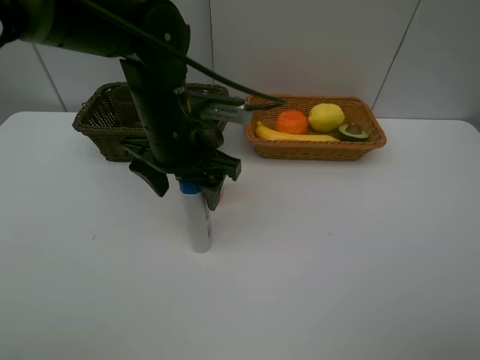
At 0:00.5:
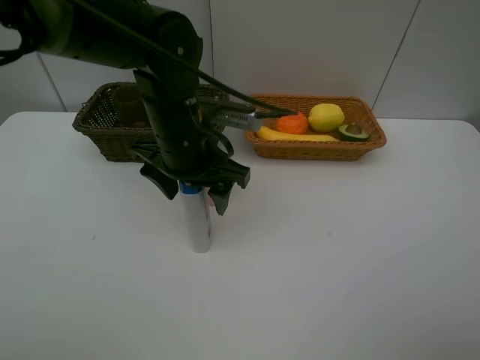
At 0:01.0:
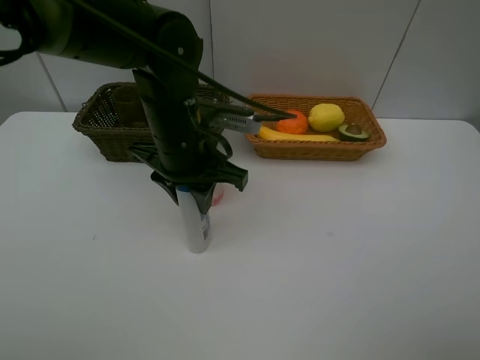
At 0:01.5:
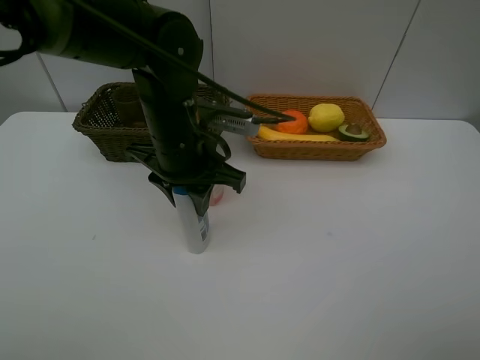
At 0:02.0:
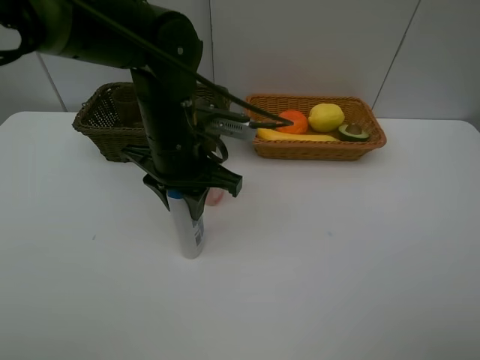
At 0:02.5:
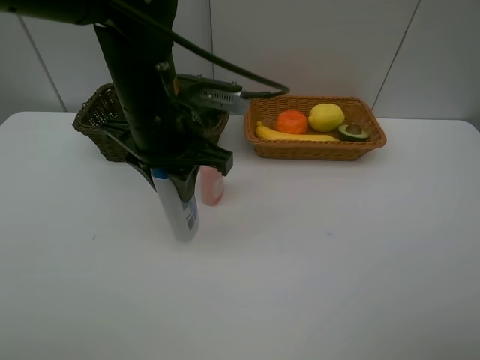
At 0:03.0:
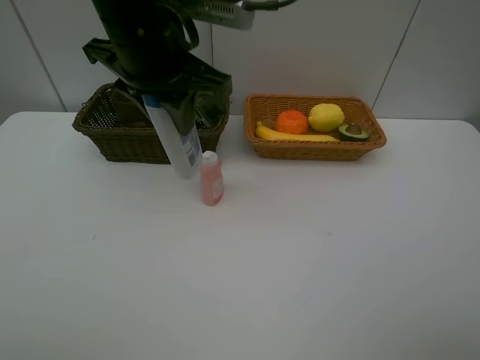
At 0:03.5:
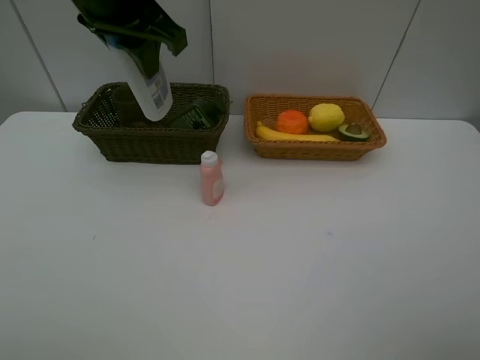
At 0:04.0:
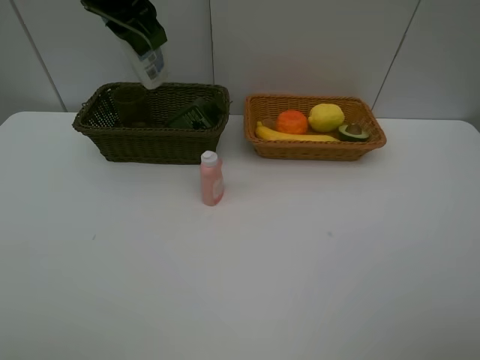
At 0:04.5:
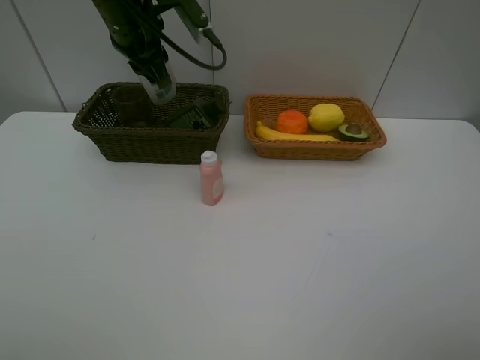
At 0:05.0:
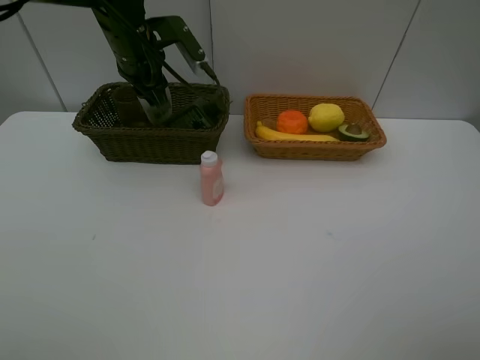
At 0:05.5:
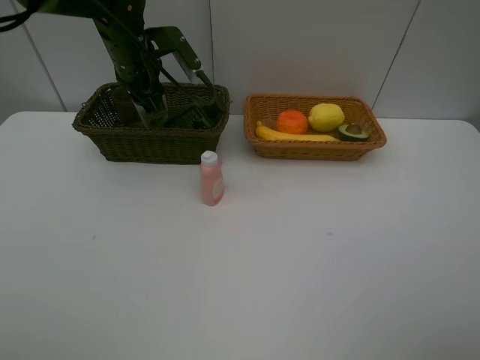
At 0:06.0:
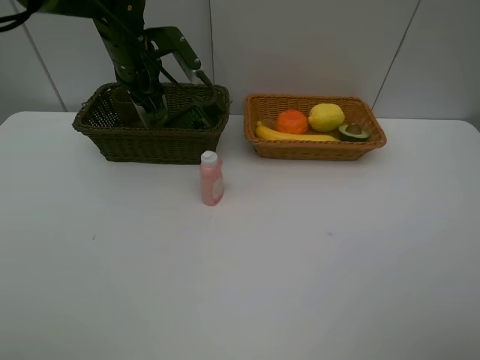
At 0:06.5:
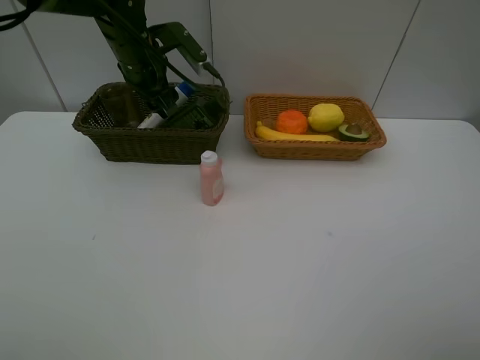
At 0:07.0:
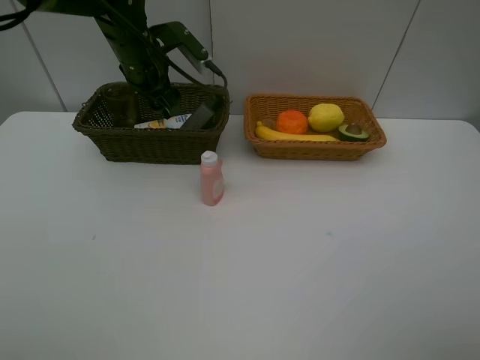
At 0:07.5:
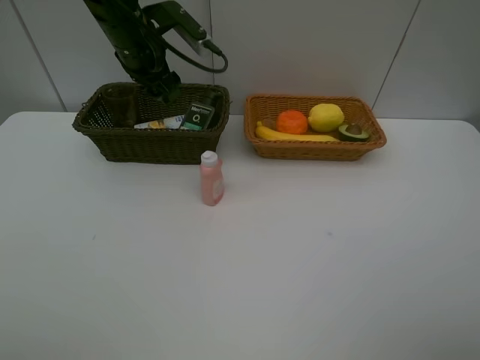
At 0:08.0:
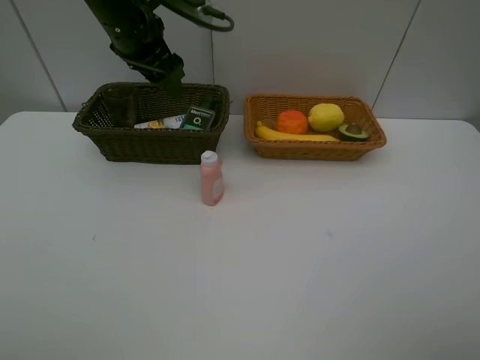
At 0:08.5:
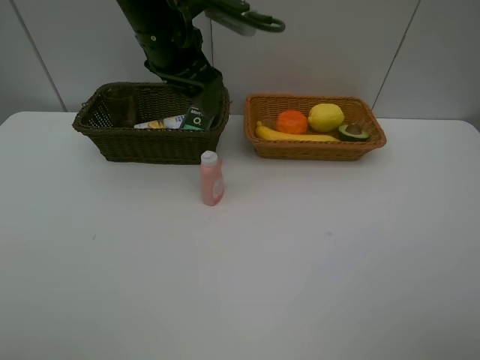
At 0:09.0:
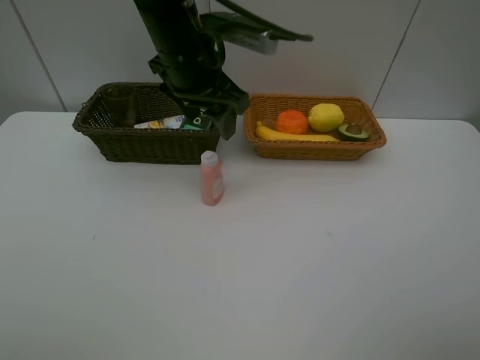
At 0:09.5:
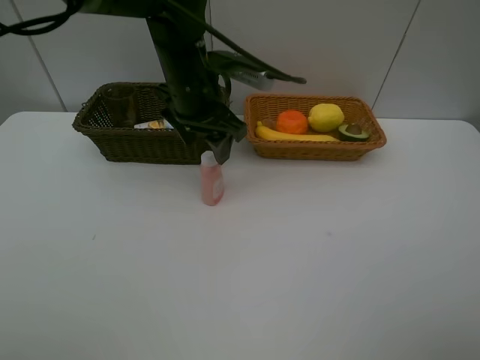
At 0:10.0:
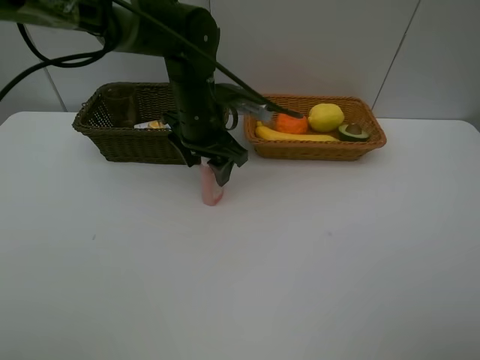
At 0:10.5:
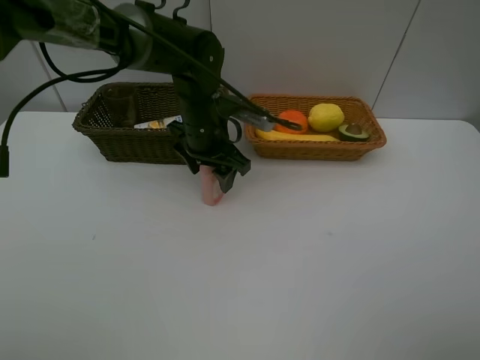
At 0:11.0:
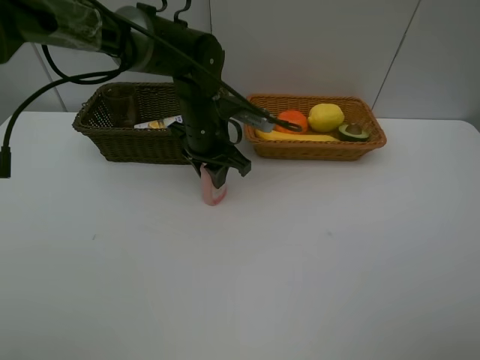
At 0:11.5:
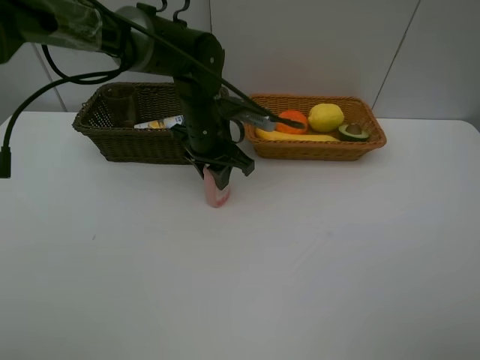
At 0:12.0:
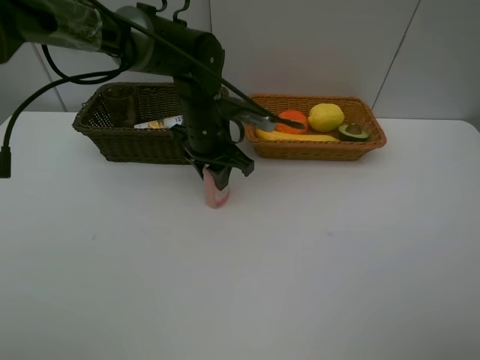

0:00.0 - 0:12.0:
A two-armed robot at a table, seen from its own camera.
Task of the whole recording: Place multiple objects separately in different baskets.
Step, 0:00.0 - 0:02.0: Pick up the shampoo with left gripper.
Step, 0:02.5 - 0:07.0: Place the shampoo in the dark basket with left gripper.
0:00.0 - 0:02.0: The left gripper closes its fingers.
0:02.0 - 0:04.0: The left gripper moves upward, forward and to the left, some 20 cm.
0:04.0 - 0:06.0: The left gripper goes roughly 15 cm downward and forward.
0:06.0 - 0:08.0: The left gripper goes some 5 cm upward, and opens up.
0:08.0 - 0:10.0: The left gripper moves downward and to the right, roughly 15 cm.
0:10.0 - 0:12.0: The left gripper closes.

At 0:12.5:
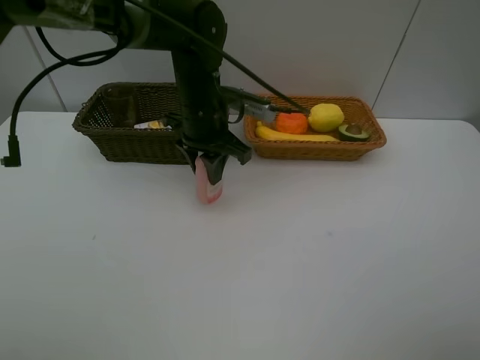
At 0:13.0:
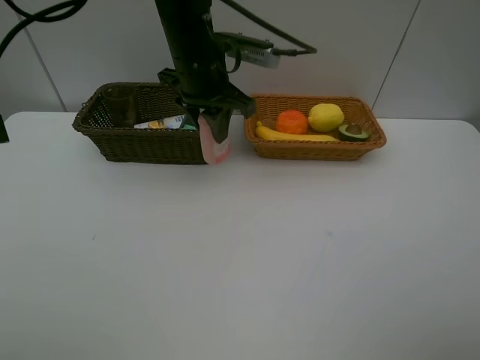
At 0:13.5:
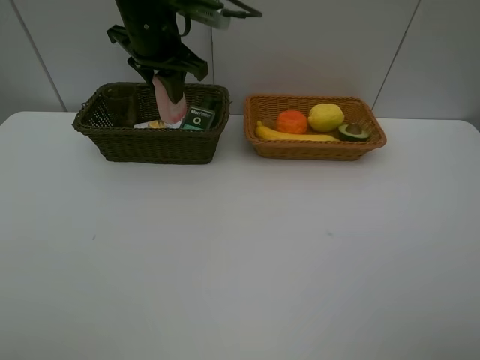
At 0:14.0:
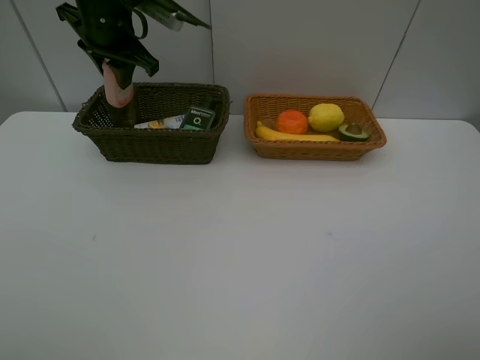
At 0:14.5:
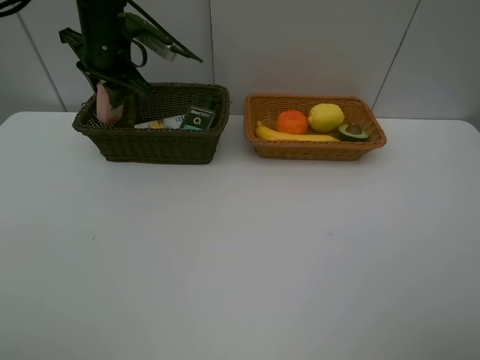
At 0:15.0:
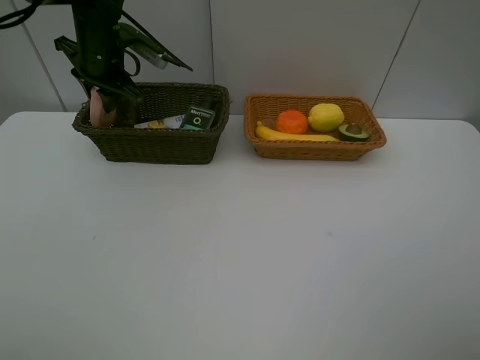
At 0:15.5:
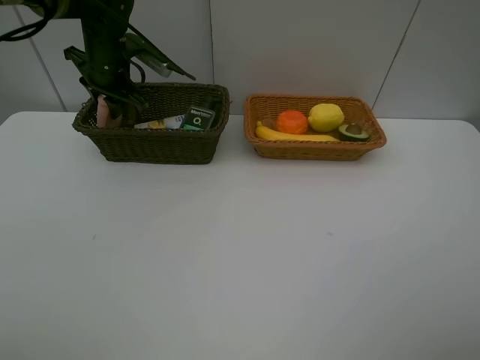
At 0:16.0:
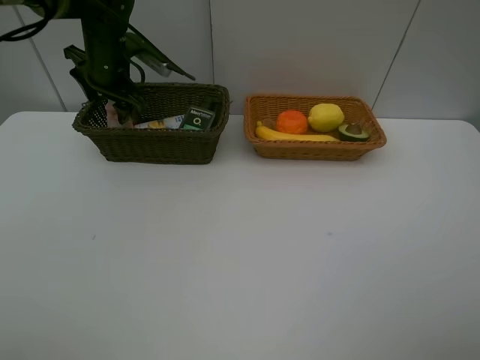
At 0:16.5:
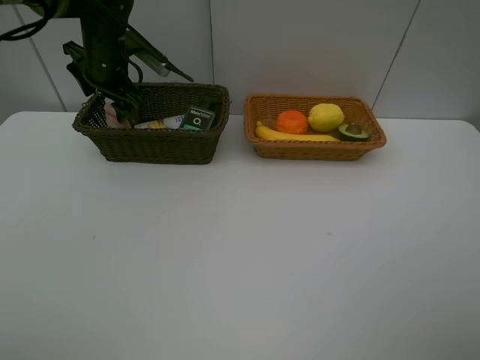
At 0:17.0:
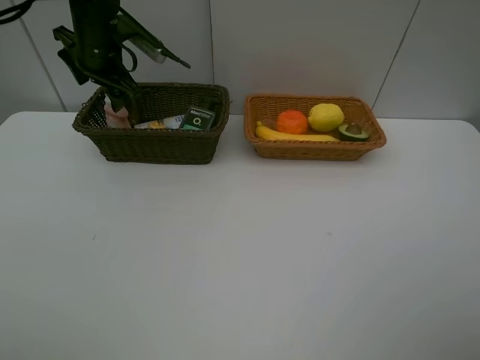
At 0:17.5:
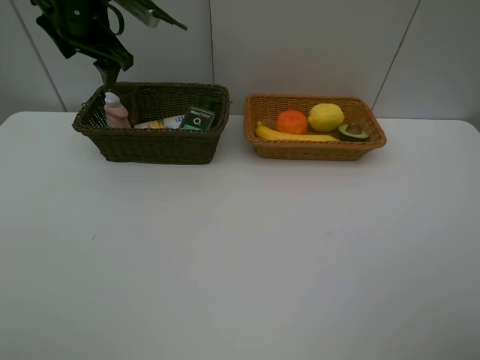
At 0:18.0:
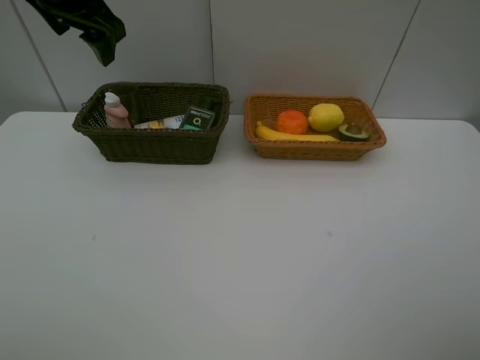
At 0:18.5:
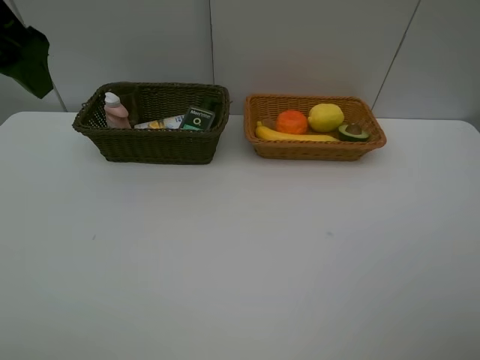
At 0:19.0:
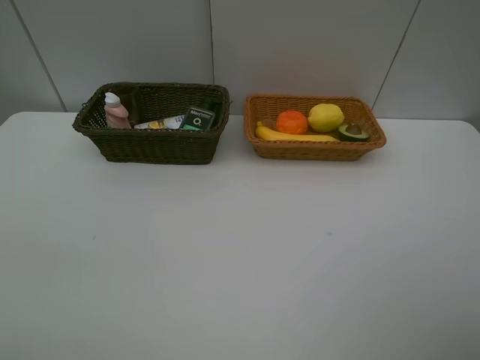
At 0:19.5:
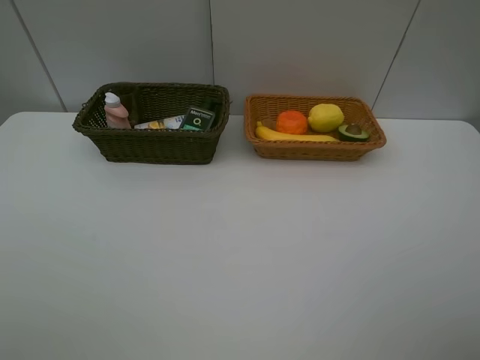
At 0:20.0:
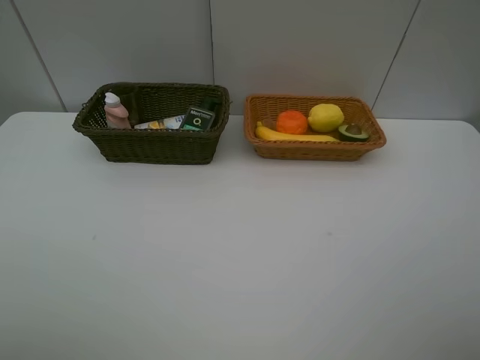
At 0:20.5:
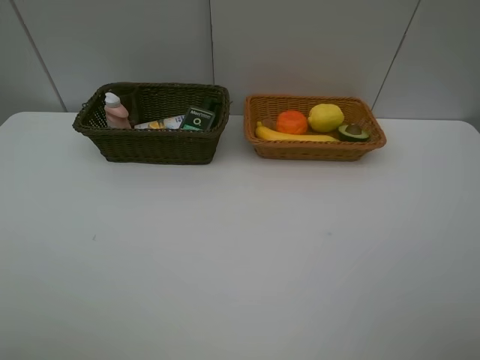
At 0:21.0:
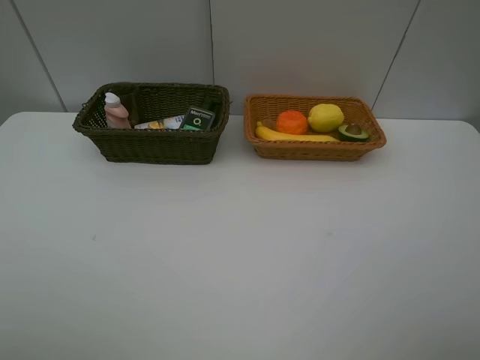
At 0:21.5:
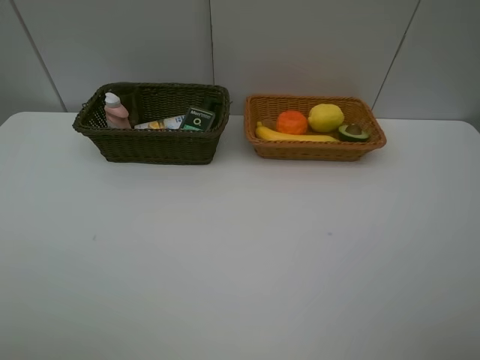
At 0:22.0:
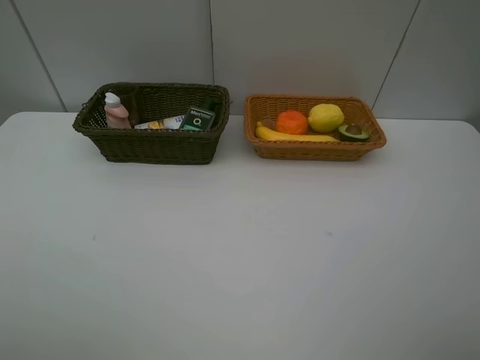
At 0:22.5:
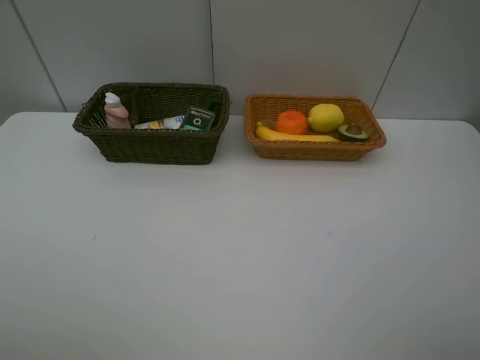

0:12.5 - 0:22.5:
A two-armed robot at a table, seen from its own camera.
Task of the whole recording: Place multiple objects separately in different baskets.
Step, 0:13.0 - 0:17.0: Place the laundry detergent in the dark basket with left gripper.
0:12.5 - 0:14.5: The left gripper moves to the left and forward, about 15 cm.
0:14.5 - 0:16.5: The left gripper opens its fingers.
0:16.5 - 0:18.5: The left gripper is displaced backward and upward by some 25 cm.
0:18.5 - 0:20.5: The left gripper goes roughly 25 cm backward.
